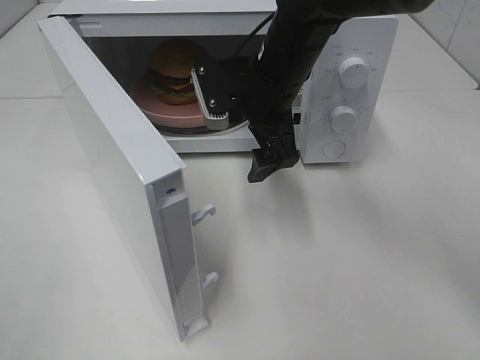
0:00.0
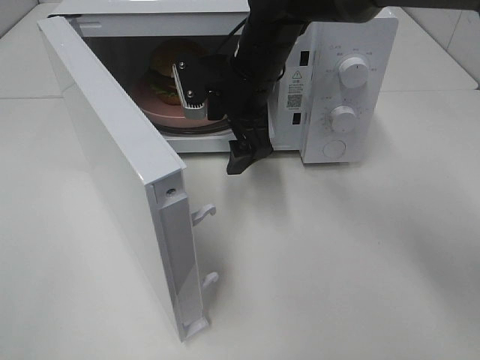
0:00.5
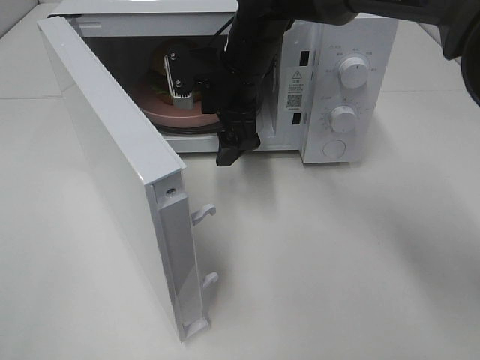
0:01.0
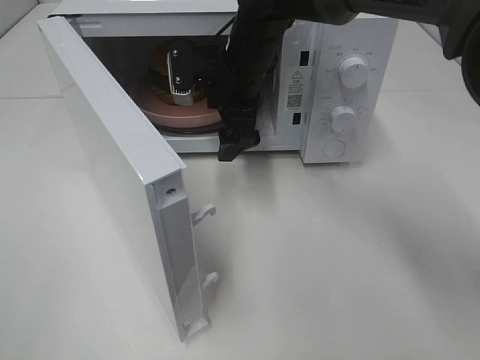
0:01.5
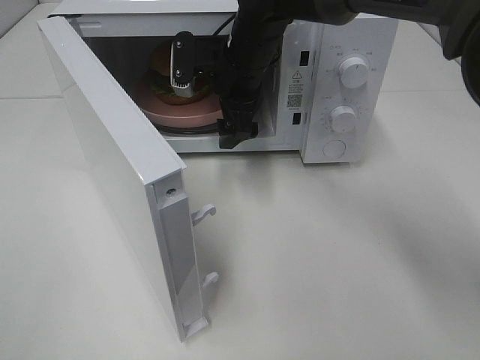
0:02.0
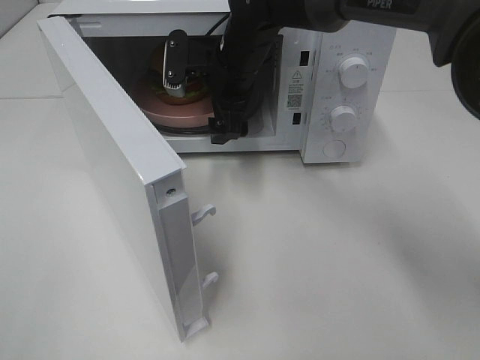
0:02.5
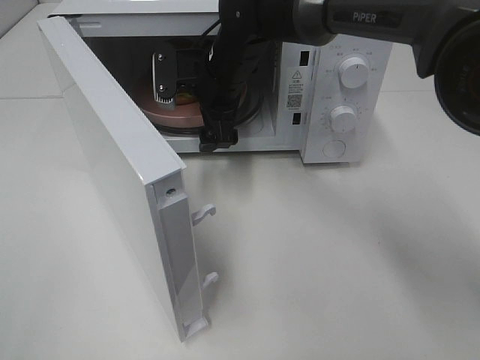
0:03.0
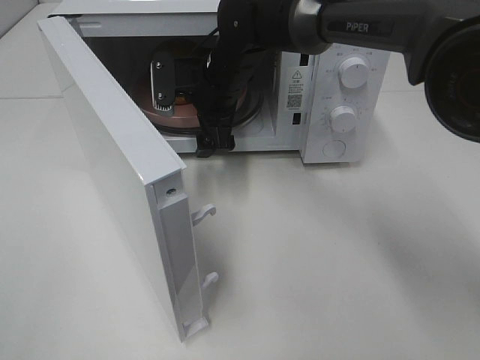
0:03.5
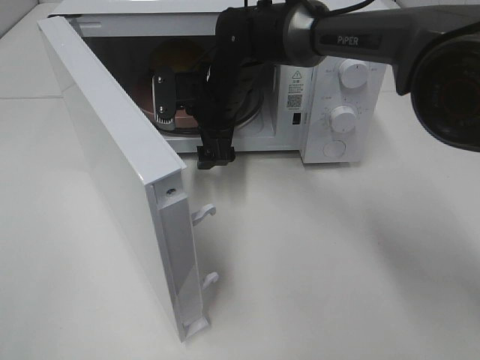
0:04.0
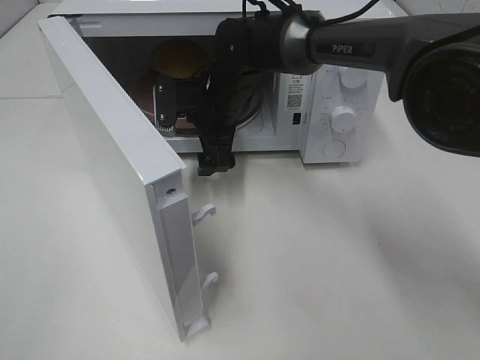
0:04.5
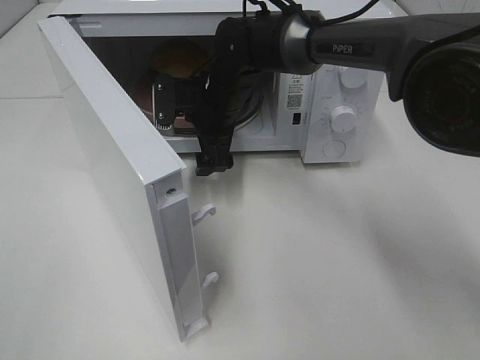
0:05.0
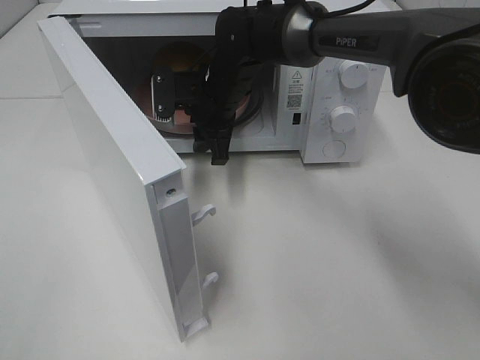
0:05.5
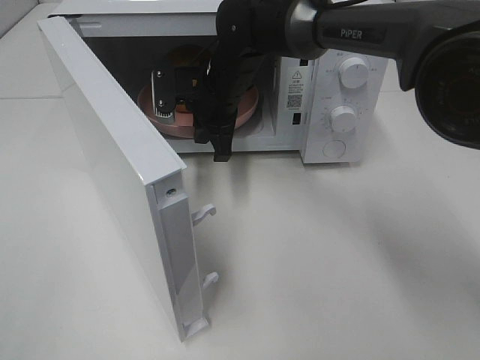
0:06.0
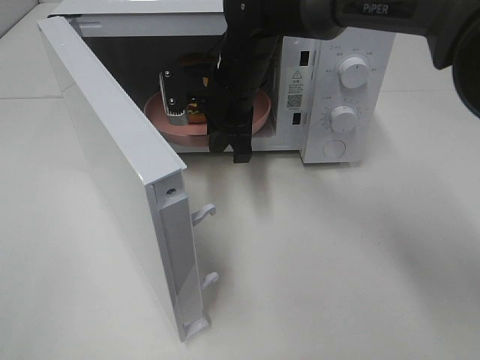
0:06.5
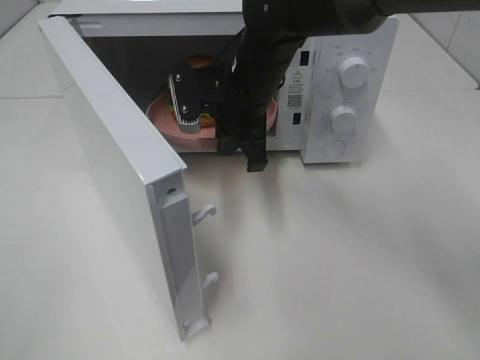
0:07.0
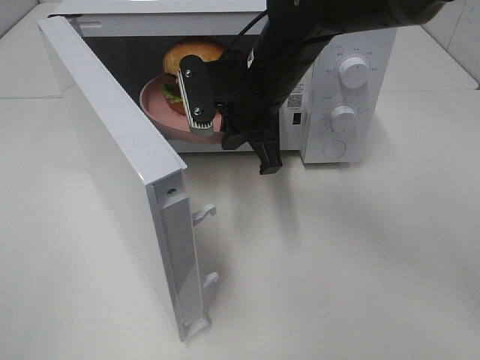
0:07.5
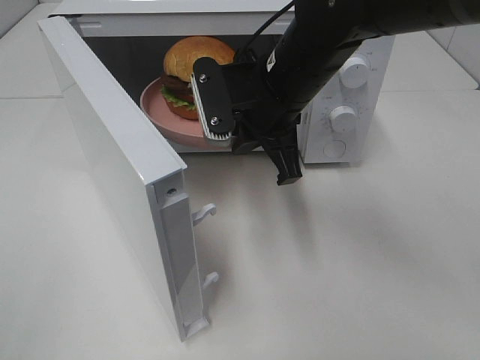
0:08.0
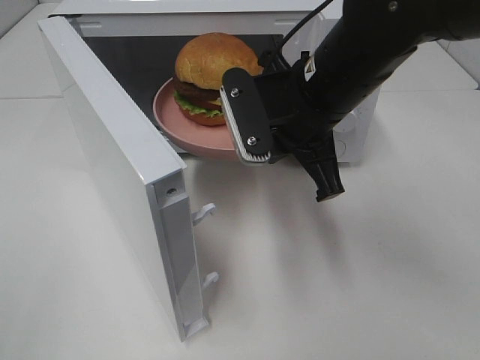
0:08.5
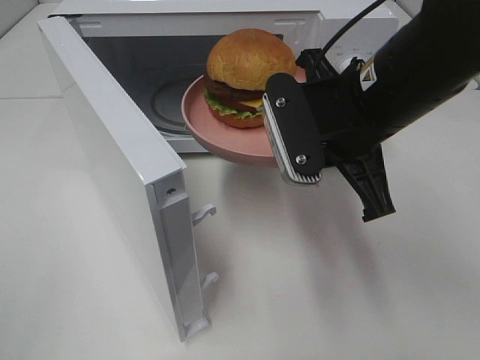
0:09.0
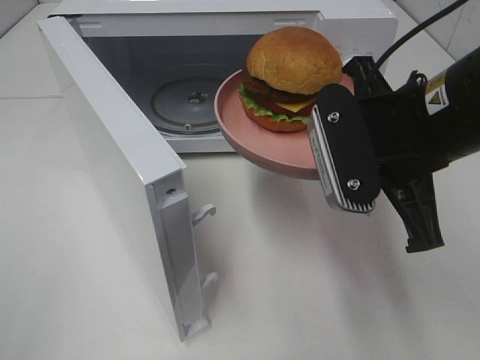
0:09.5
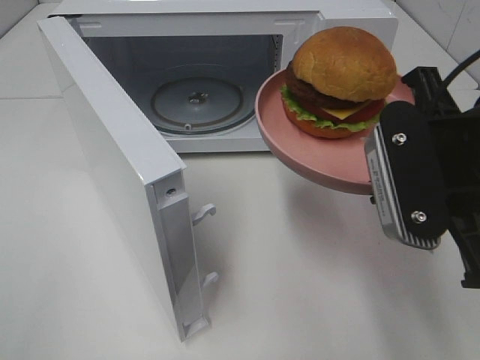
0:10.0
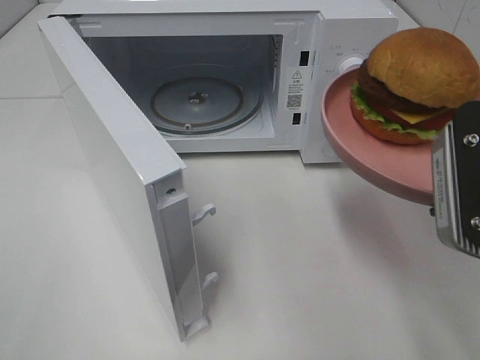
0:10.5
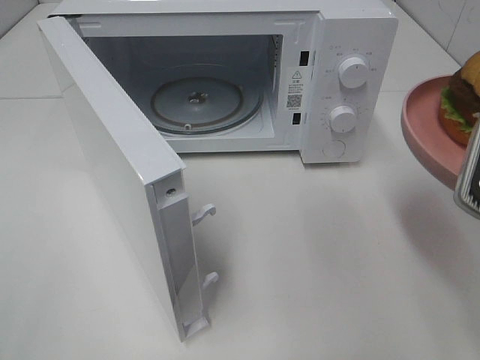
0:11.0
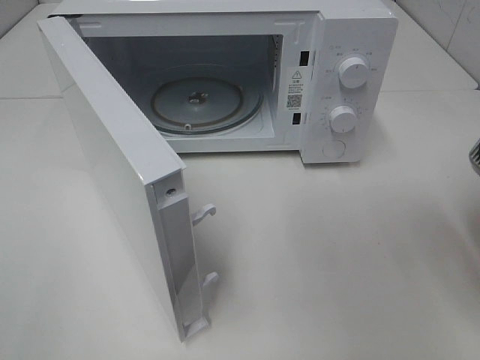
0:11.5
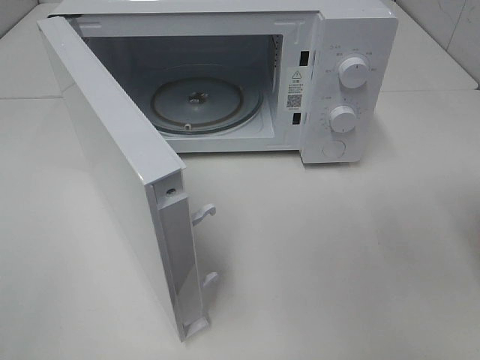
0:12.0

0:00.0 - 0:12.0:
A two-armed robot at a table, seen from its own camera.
Task of the whole recording: Heat the burger.
Step, 0:00.0 - 0:05.5: Right hand: grab the plate with the hamburger.
0:00.0 - 0:02.0: The right gripper goes some 5 cm forward.
0:02.0 - 0:04.0: The right gripper moves roughly 5 cm.
0:04.0 - 0:06.0: The right gripper closes its fingers.
0:06.0 - 0:08.0: The right gripper travels backward, to the right and upward by about 15 cm.
0:08.0 - 0:10.0: The right gripper shifts approximately 20 cm backward and to the right.
0:10.0 - 0:12.0: The right gripper is displaced to the right and downward by about 15 cm.

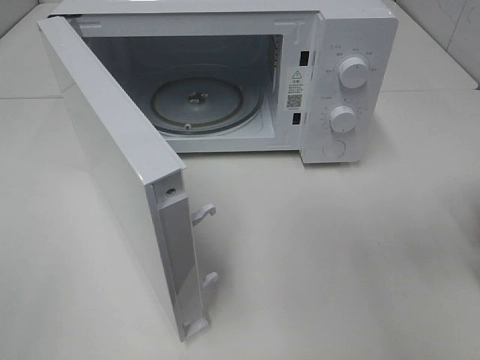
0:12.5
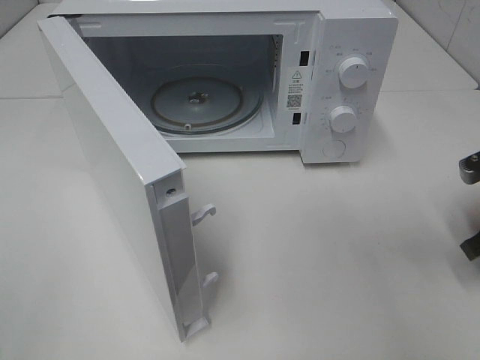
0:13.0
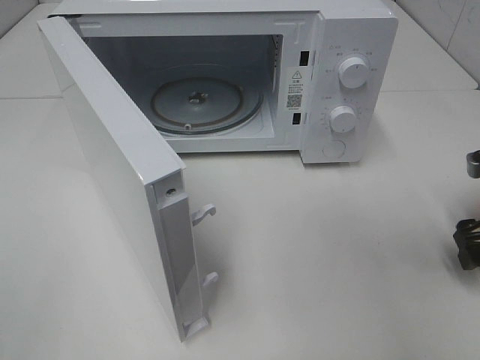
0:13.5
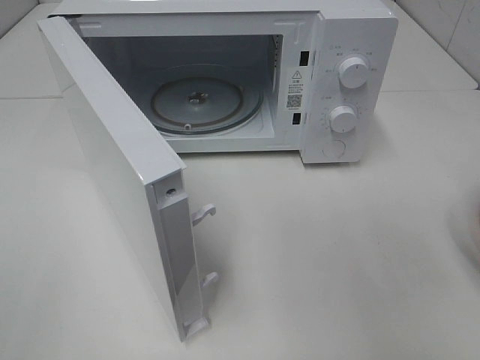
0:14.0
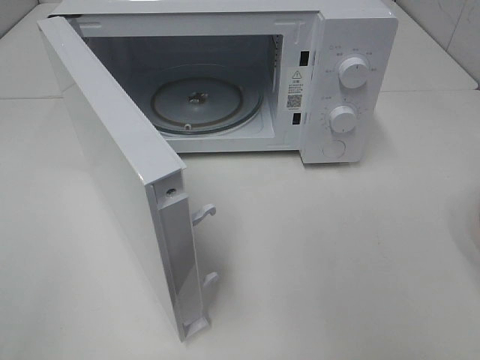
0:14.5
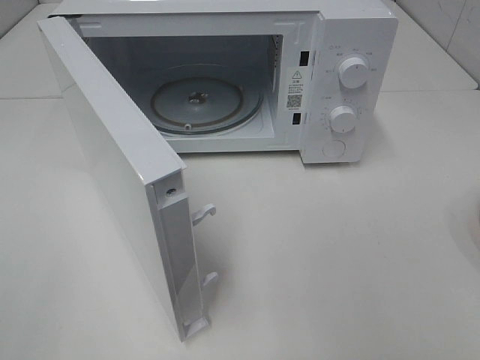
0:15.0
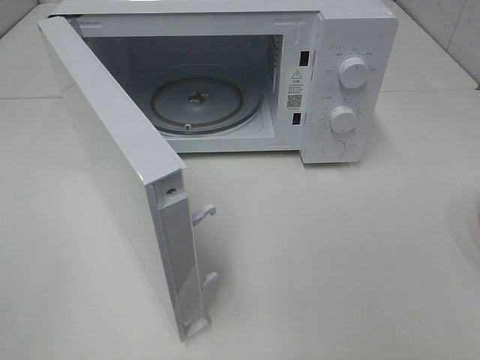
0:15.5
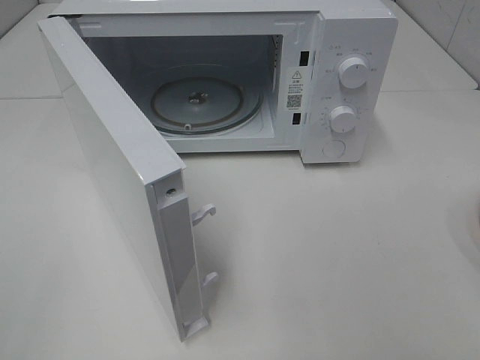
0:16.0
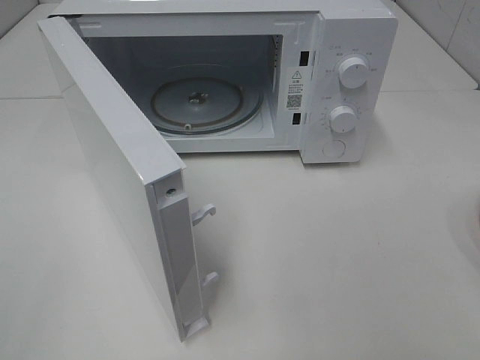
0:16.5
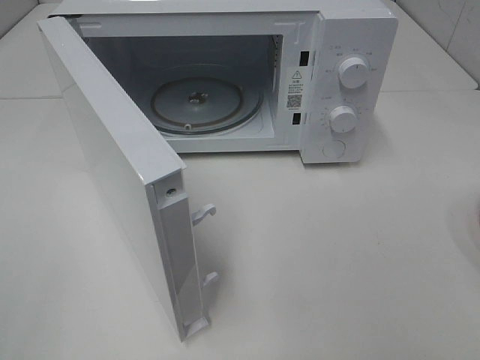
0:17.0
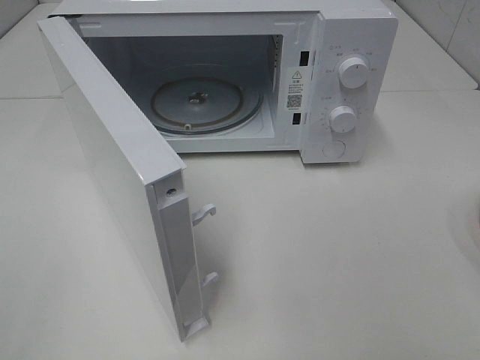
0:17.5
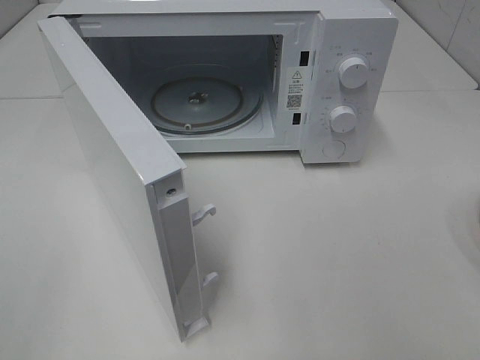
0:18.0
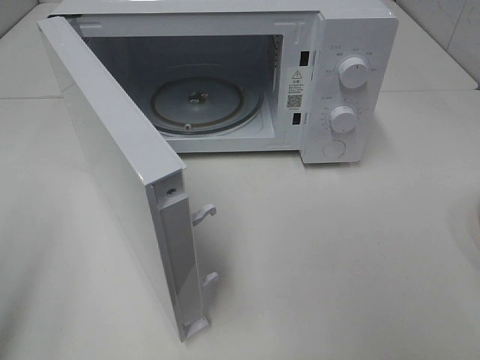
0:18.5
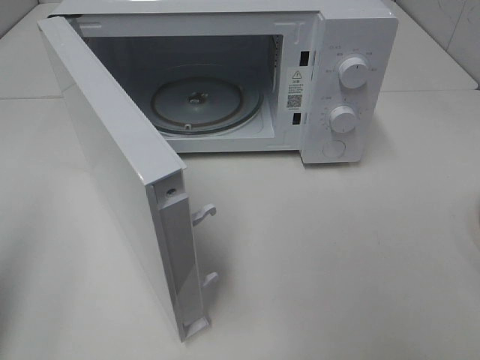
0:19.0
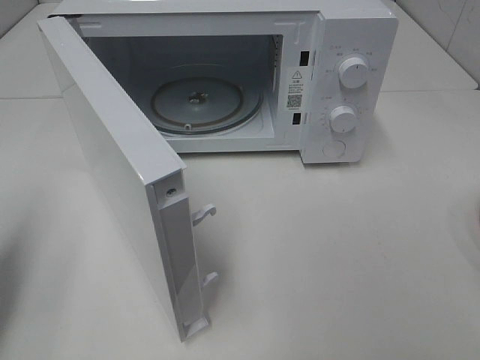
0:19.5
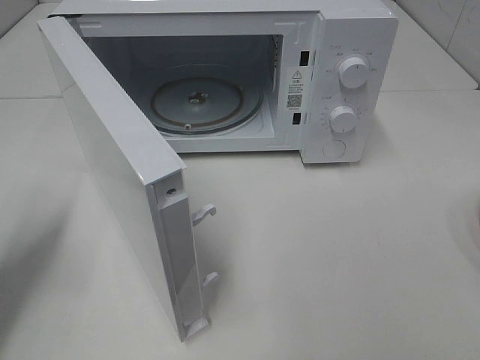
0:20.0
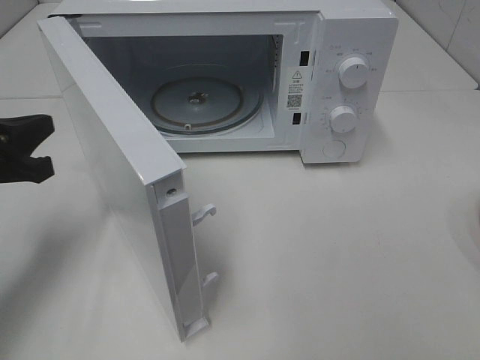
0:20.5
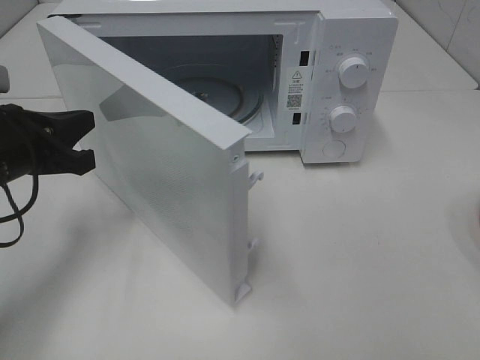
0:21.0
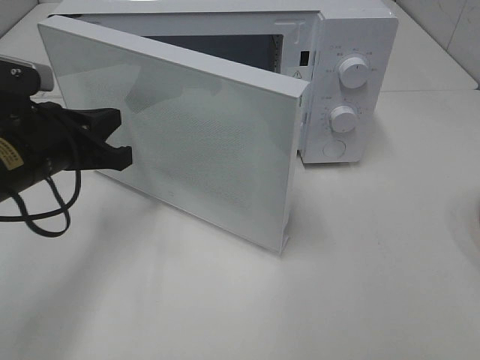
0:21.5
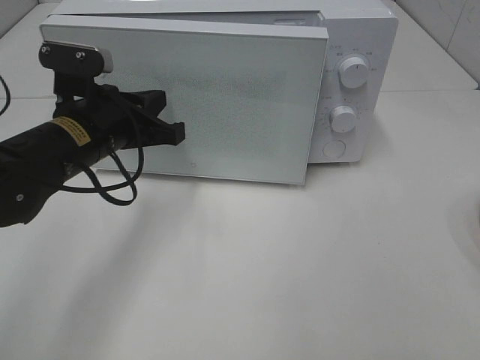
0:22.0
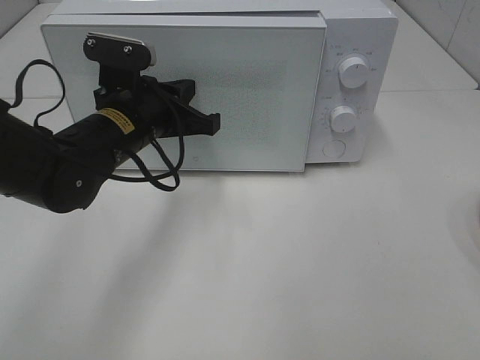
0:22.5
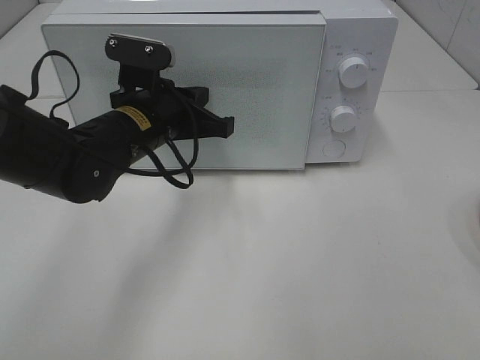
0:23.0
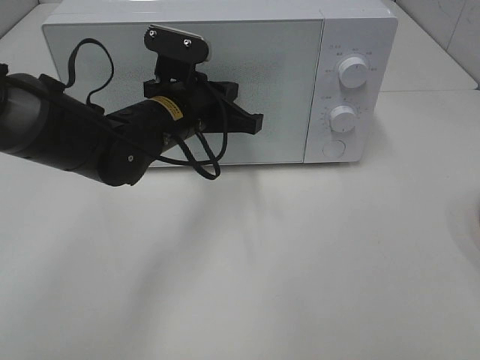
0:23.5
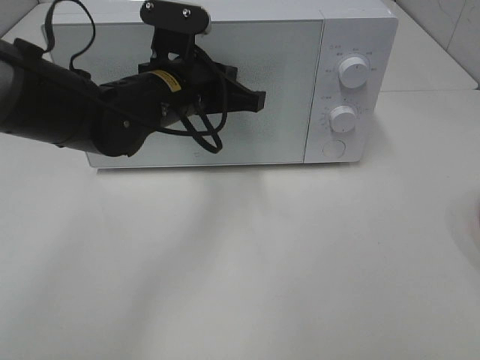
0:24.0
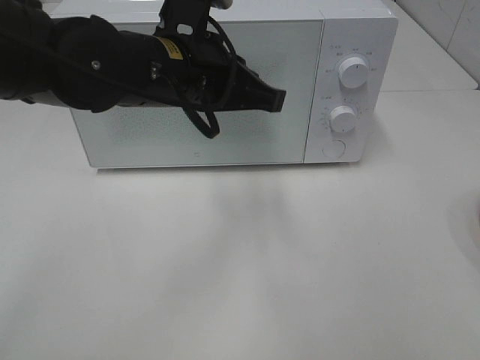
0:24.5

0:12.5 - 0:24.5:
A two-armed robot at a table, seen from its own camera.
Task of the whole recording: Heat the burger.
Step, 0:13.5 - 0:23.5: Left hand: close the microwave door.
0:16.5 - 0:18.5: The left gripper shifts about 10 cm forward, and closes.
0:18.5 - 0:20.5: The left gripper shifts roughly 20 cm forward and downward, and closes up.
0:20.5 - 0:22.5: The left gripper shifts some 15 cm to the right and forward.
0:22.5 - 0:24.5: The left gripper moves upward and to the right, roughly 10 cm.

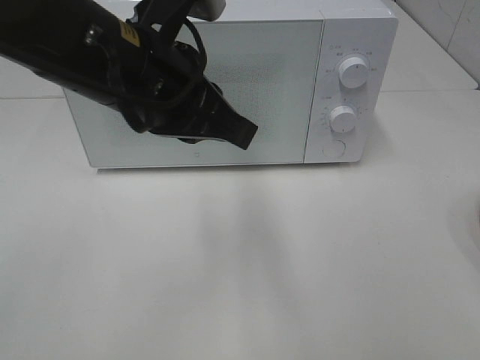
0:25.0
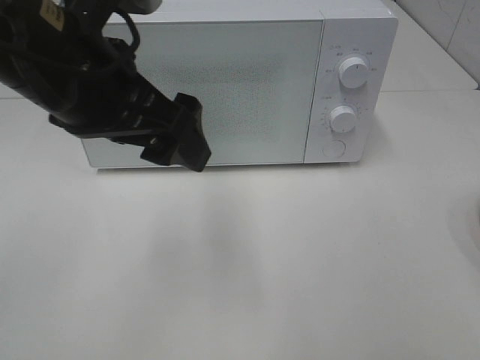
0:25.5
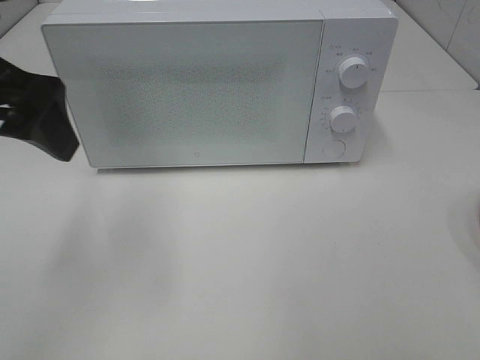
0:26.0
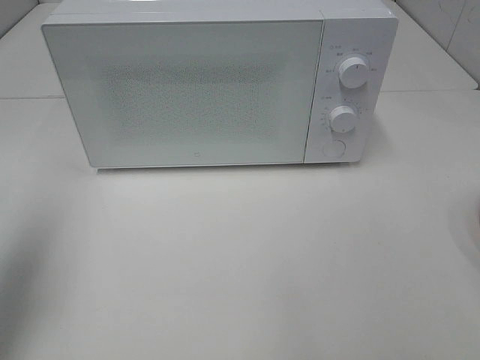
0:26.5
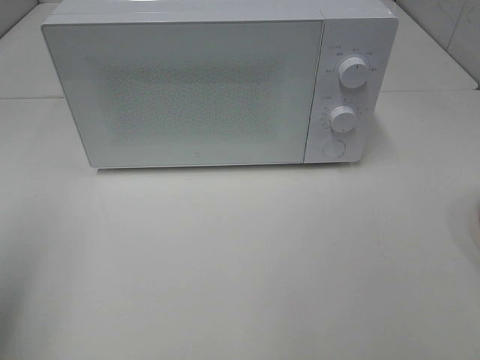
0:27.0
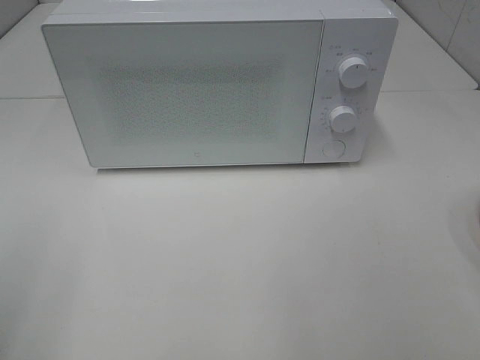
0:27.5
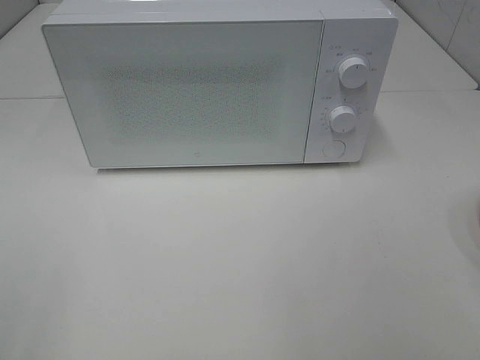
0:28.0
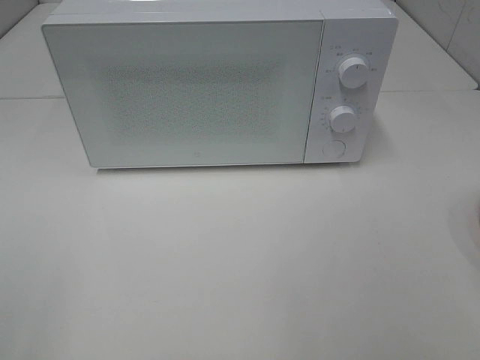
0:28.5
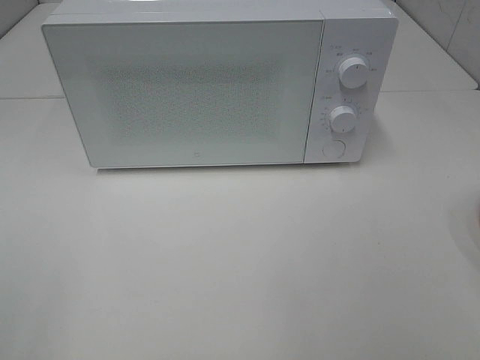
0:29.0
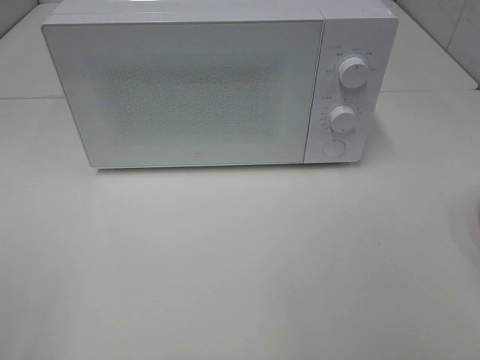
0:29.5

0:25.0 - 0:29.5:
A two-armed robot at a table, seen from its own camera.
Task of the whole recording: Heat the burger.
0:25.0 - 0:27.0: The left gripper shifts about 30 cm to the left and backward, and opens its fingers.
0:27.0 - 0:29.5: The left gripper goes roughly 15 cm backward.
